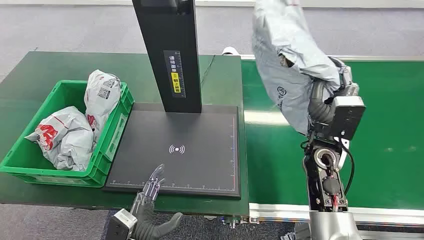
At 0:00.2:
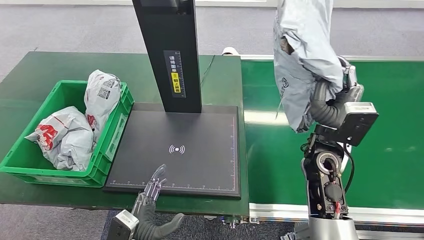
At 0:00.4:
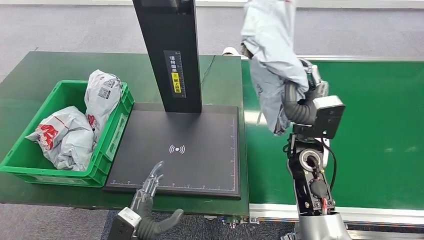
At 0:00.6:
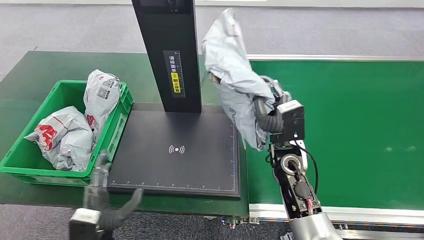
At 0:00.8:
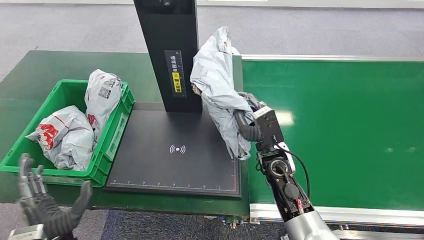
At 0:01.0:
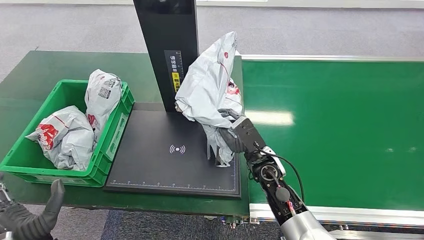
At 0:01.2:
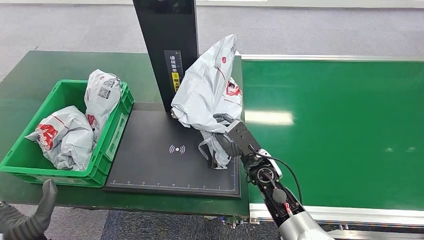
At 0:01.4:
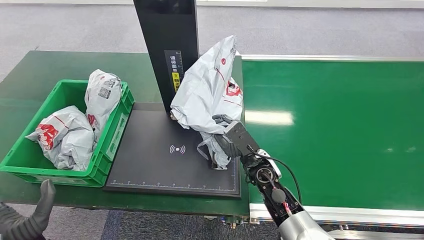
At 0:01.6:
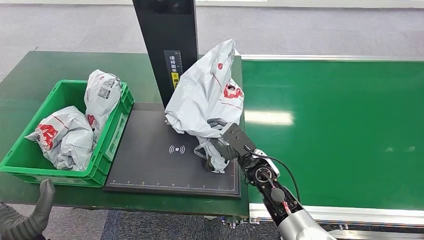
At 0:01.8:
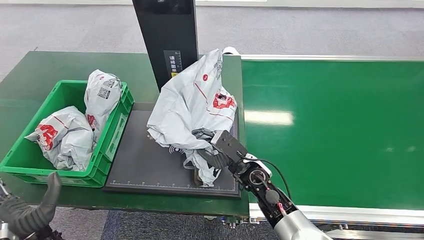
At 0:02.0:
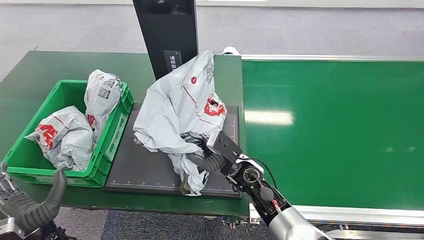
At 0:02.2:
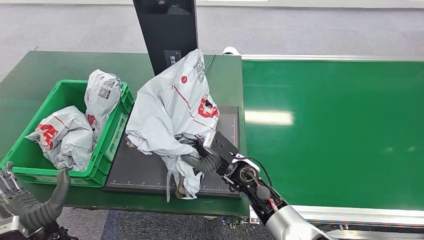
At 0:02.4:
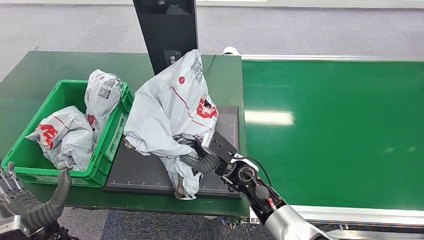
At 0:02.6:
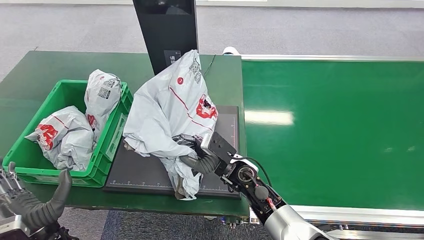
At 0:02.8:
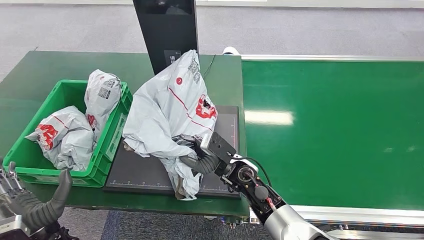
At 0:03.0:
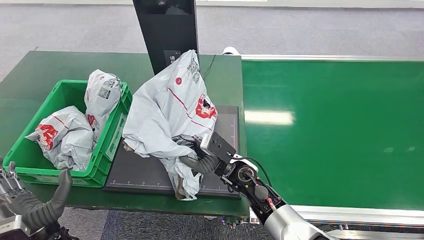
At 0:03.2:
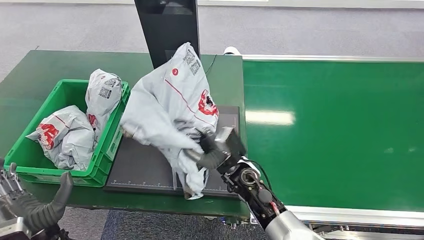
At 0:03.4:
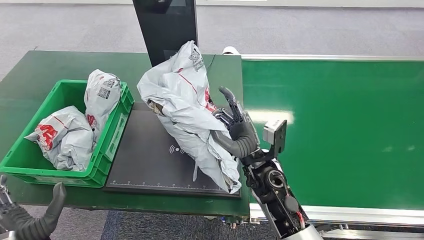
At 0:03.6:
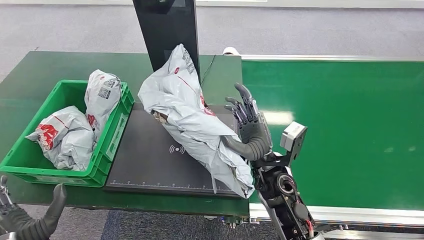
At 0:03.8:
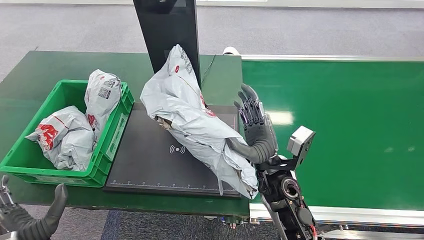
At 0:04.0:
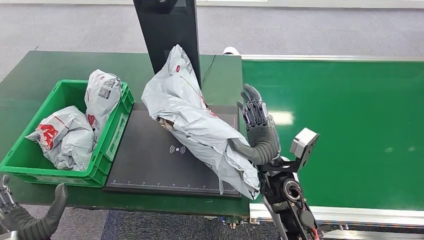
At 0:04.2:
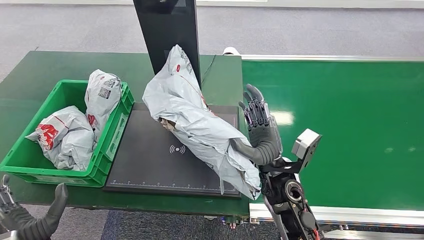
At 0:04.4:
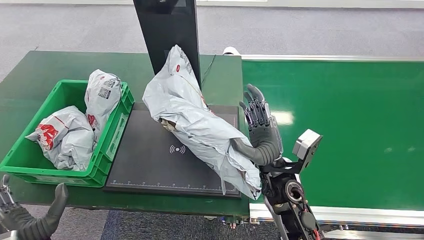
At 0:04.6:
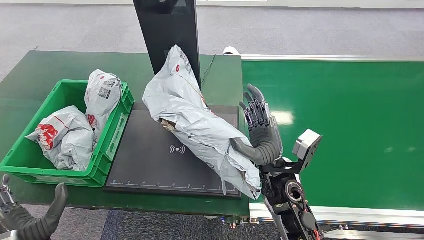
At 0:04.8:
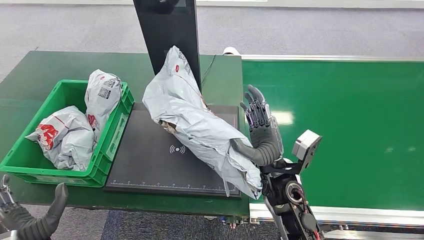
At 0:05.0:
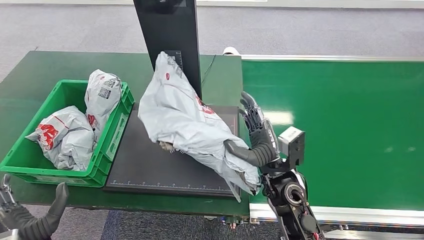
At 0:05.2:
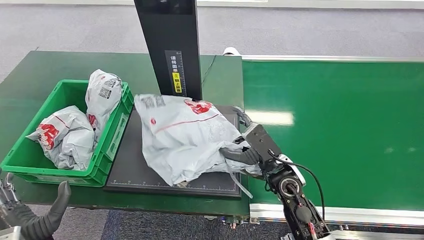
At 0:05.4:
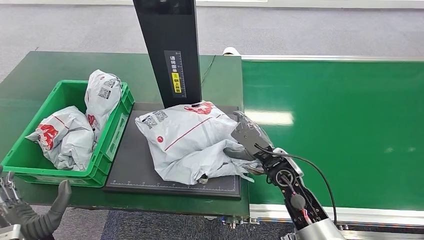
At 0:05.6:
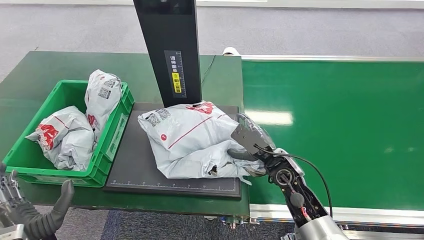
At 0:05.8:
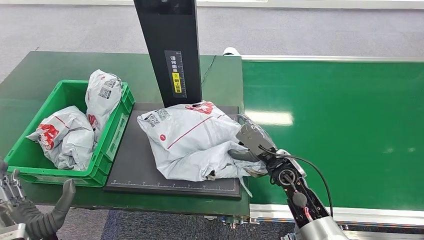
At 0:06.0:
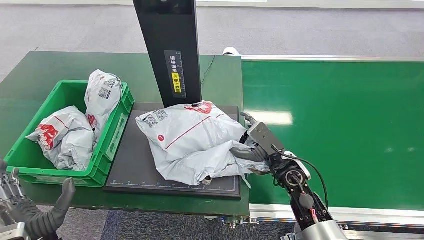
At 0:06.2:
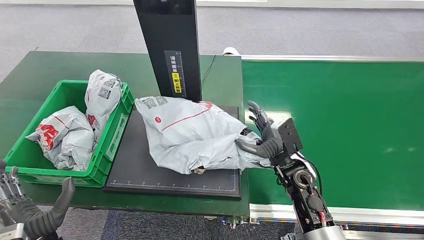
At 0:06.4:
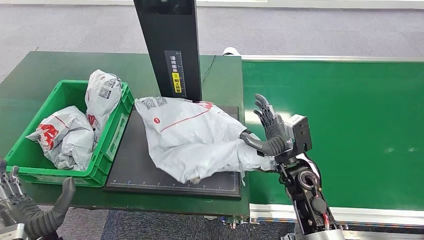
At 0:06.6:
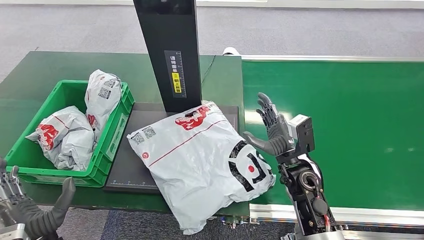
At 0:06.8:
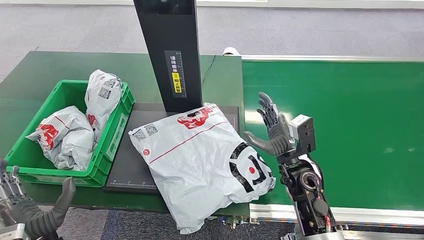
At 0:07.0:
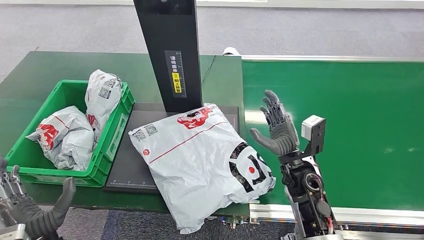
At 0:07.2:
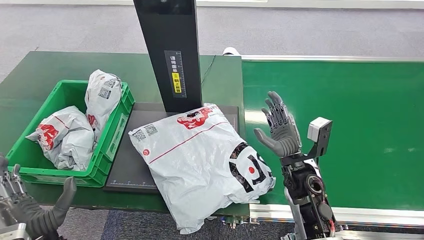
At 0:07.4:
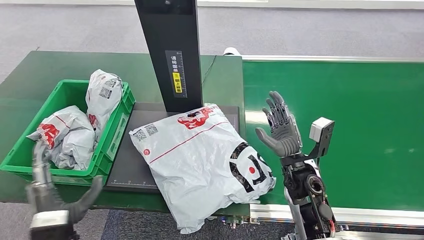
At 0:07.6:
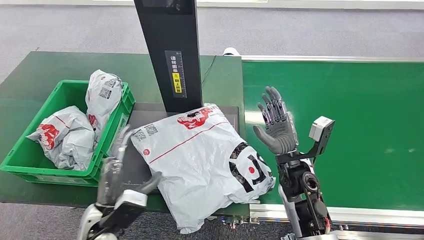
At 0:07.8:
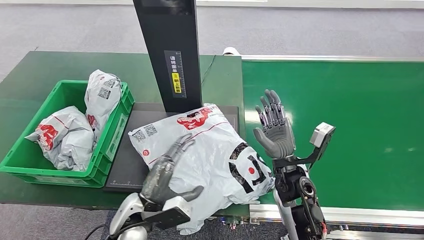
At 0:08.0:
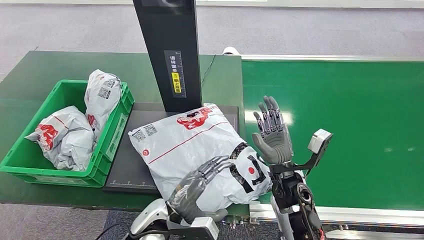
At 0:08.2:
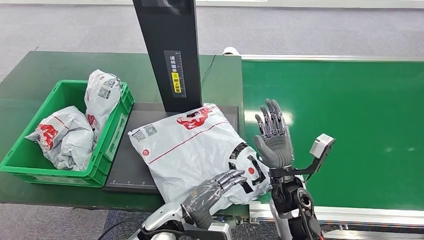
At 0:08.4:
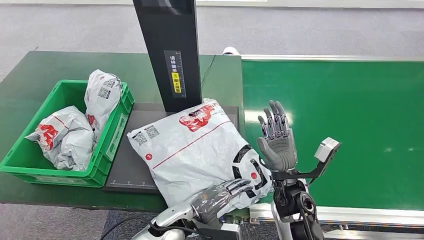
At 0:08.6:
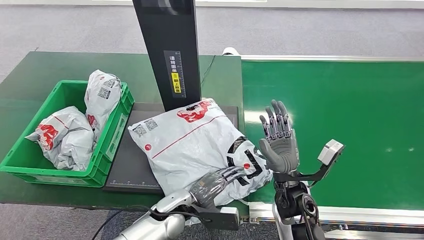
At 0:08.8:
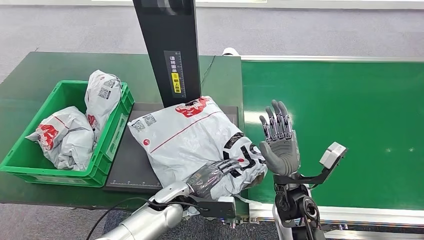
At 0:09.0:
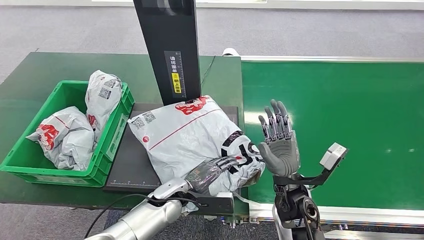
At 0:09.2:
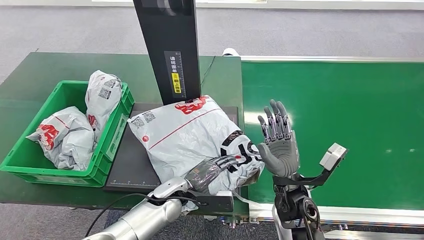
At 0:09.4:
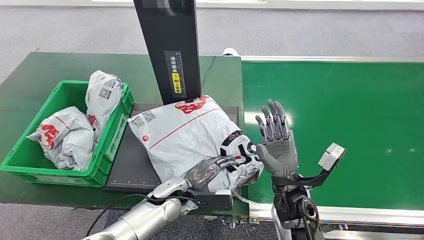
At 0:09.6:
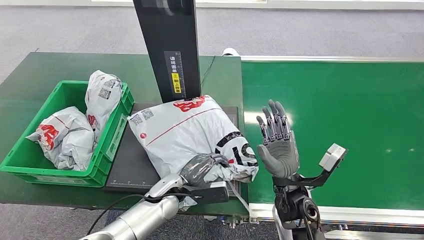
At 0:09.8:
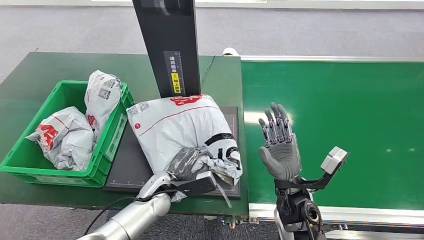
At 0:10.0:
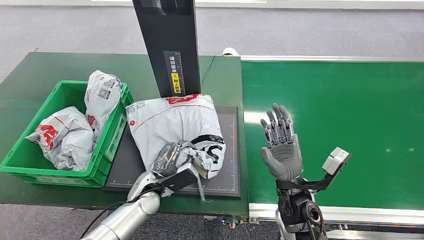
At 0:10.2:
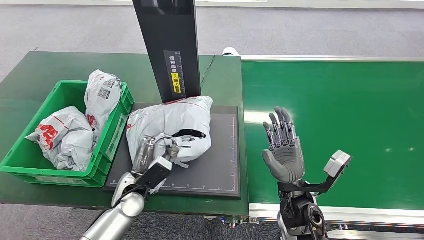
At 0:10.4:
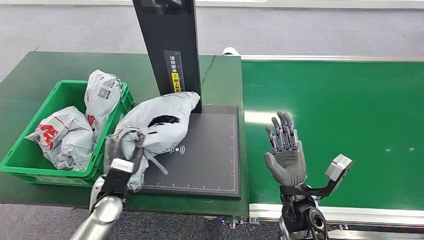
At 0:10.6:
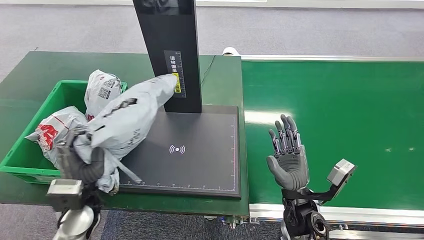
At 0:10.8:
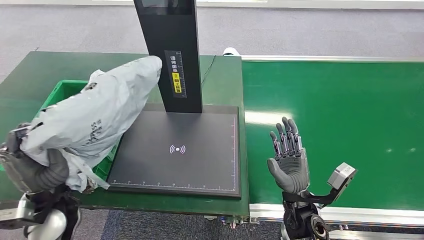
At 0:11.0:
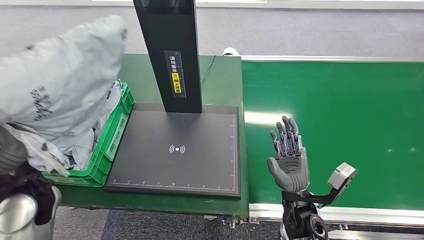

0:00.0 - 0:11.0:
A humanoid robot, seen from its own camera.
Step, 0:06.6 - 0:06.8: Place the package onto the inbound machine.
0:03.2 - 0:04.8: The right hand heads to the right, covering about 5 cm.
0:04.8 - 0:06.2: The right hand travels to the right by approximately 5 cm.
0:06.2 - 0:07.8: The left hand goes some 15 cm to the right and forward.

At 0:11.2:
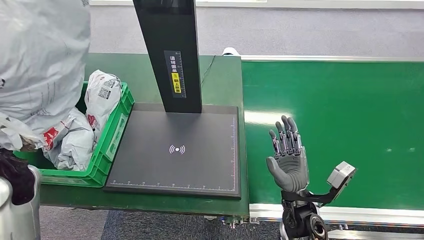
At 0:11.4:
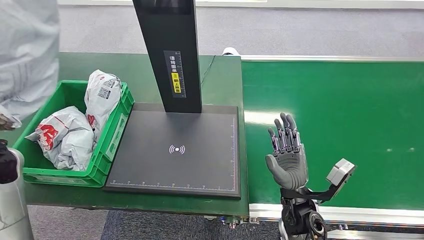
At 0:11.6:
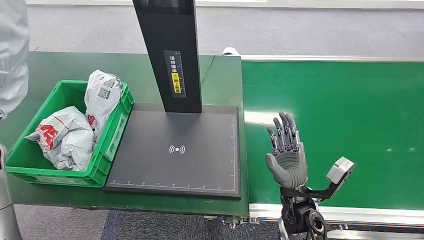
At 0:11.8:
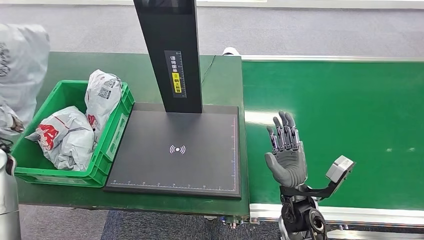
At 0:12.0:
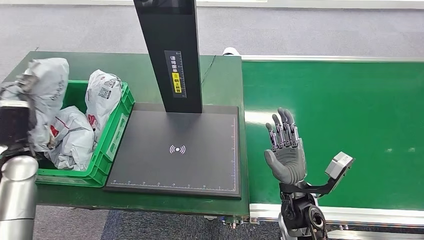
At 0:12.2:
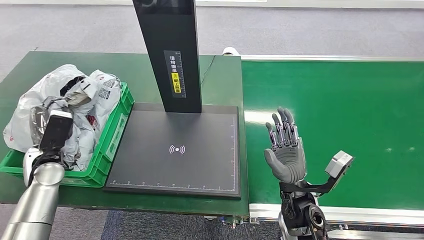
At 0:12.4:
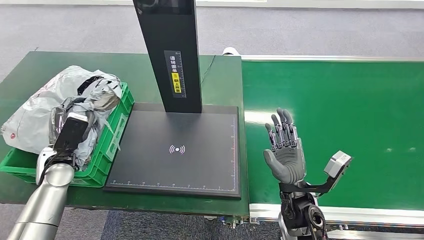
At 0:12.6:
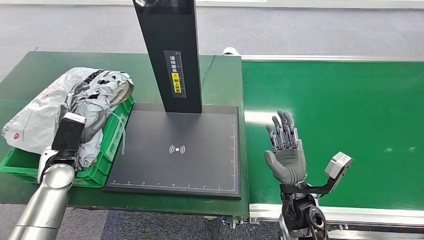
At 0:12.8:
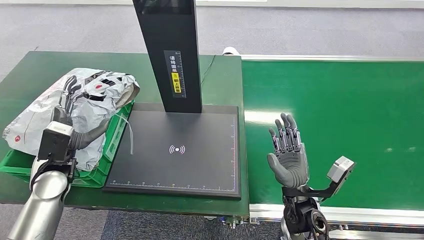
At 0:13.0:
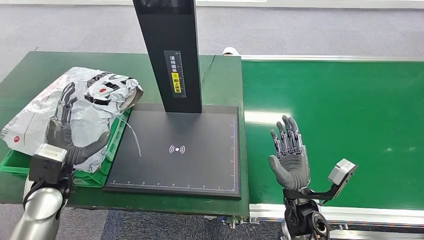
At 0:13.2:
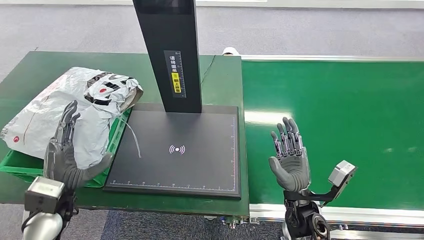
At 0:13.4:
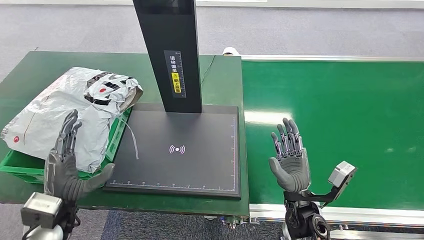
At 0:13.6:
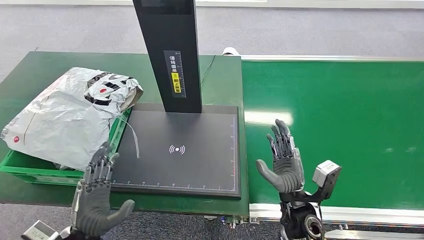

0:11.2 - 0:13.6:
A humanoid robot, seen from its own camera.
0:11.2 - 0:12.4: The left hand travels downward and forward by about 15 cm.
0:12.4 - 0:13.6: The left hand goes some 25 cm backward and to the right.
